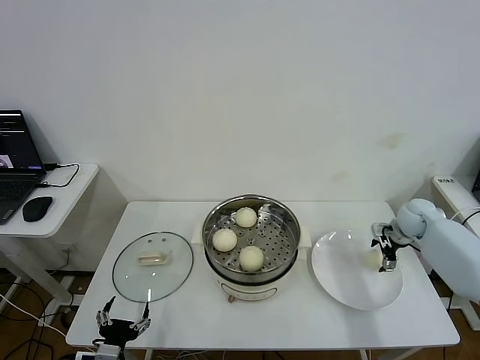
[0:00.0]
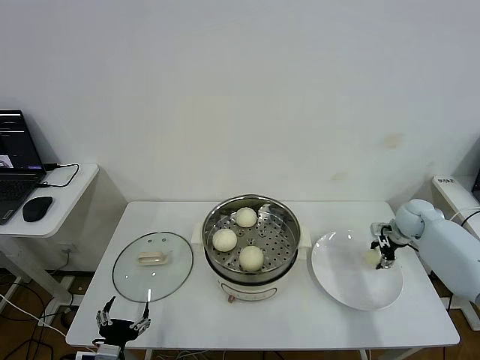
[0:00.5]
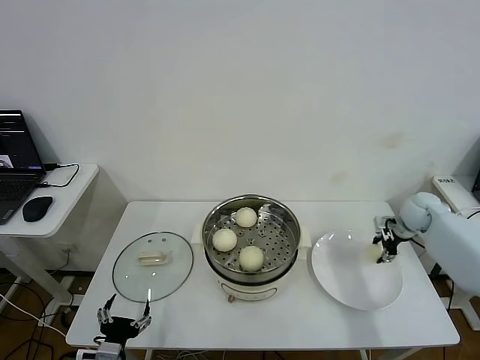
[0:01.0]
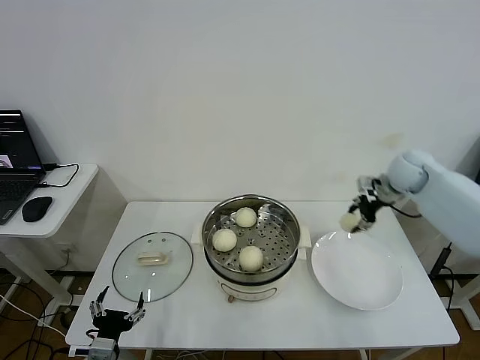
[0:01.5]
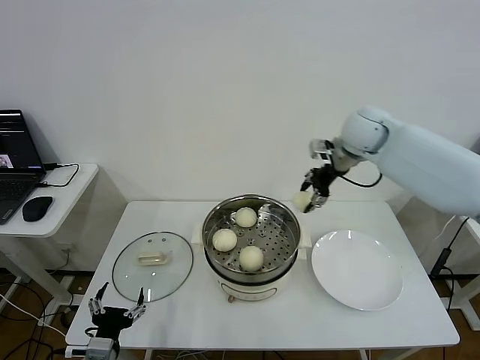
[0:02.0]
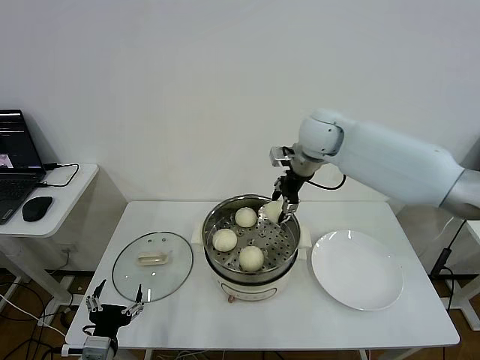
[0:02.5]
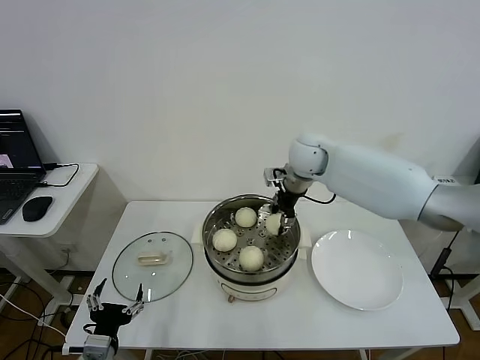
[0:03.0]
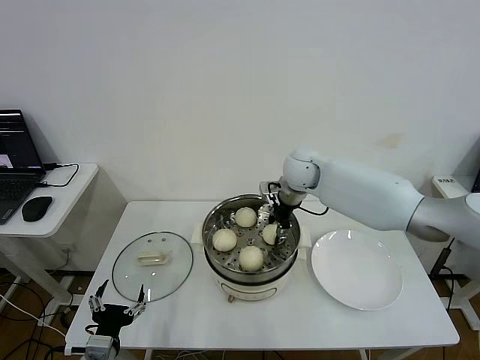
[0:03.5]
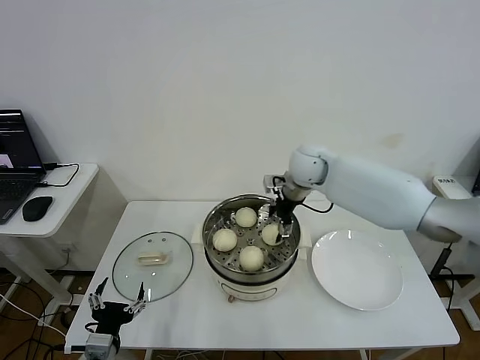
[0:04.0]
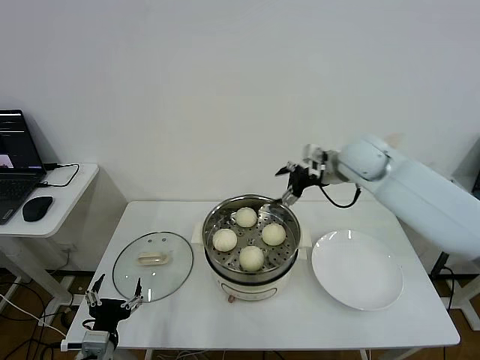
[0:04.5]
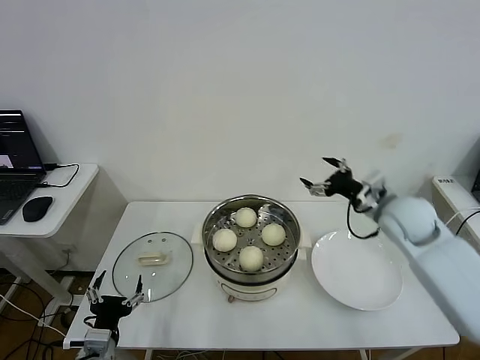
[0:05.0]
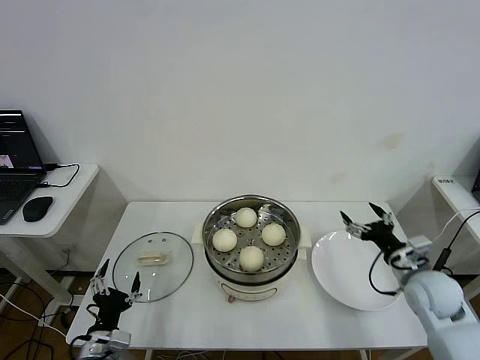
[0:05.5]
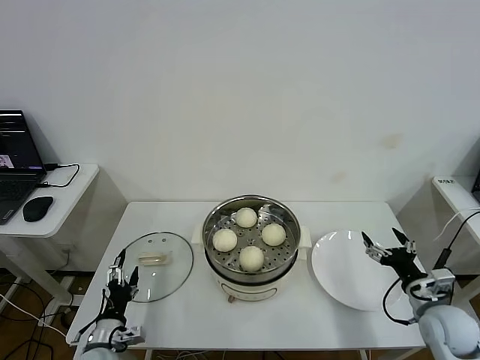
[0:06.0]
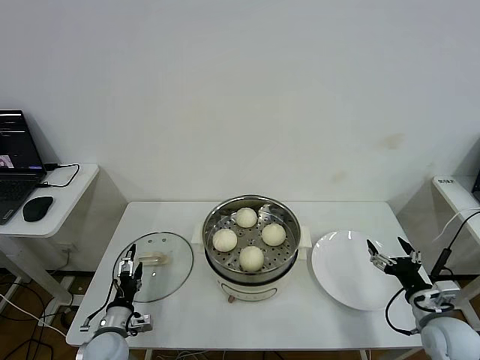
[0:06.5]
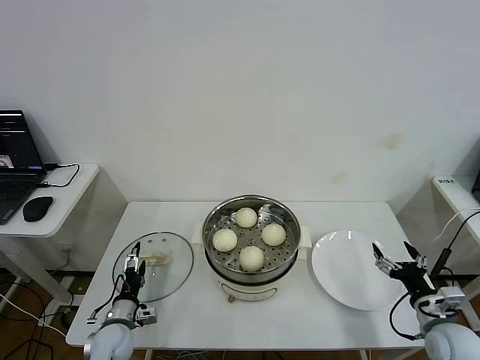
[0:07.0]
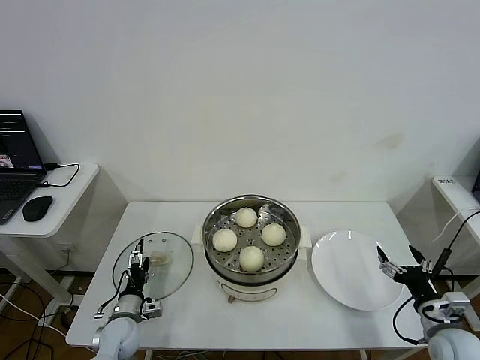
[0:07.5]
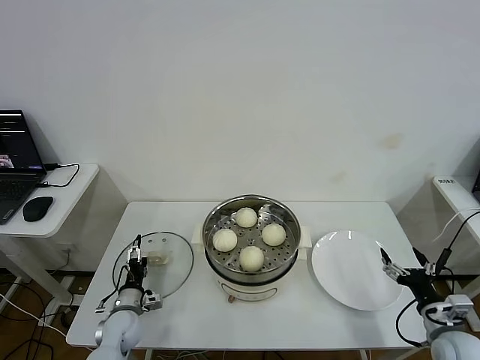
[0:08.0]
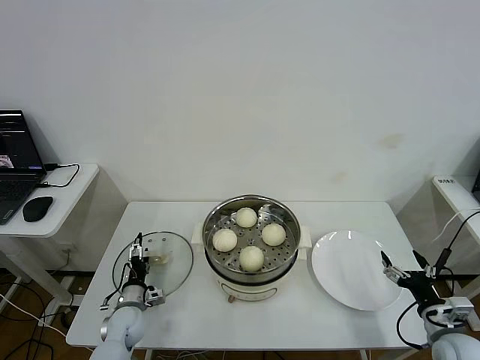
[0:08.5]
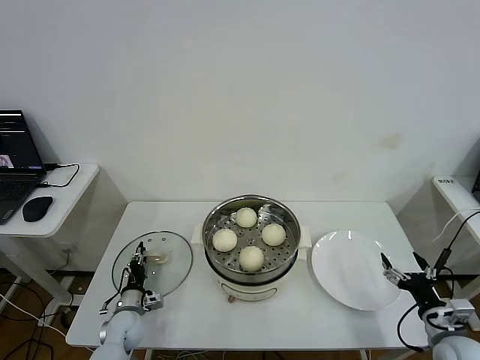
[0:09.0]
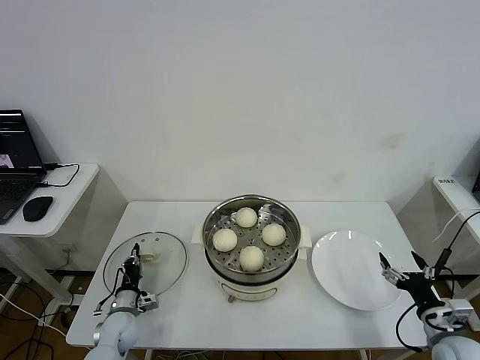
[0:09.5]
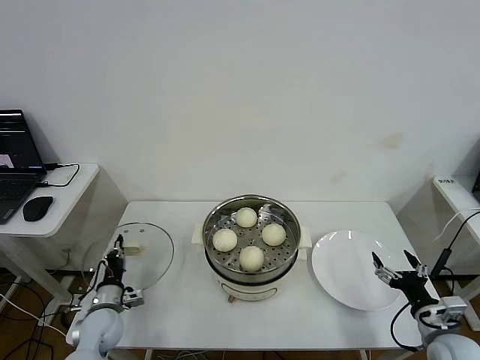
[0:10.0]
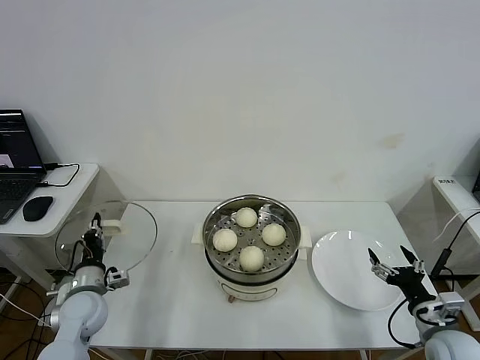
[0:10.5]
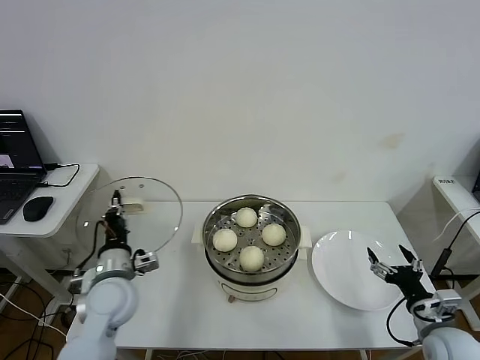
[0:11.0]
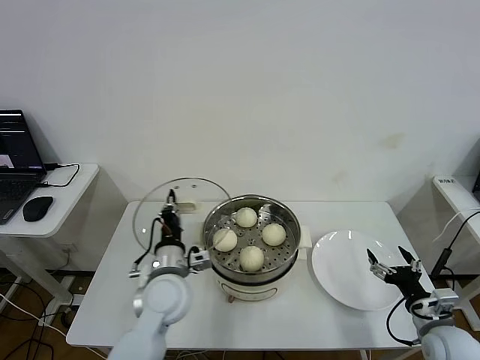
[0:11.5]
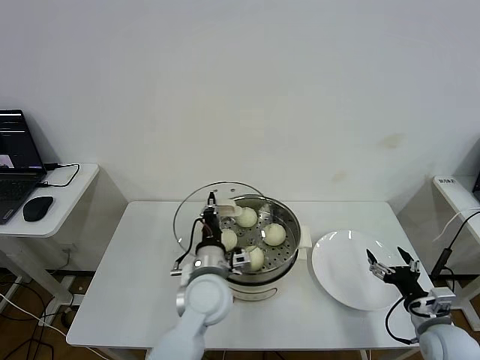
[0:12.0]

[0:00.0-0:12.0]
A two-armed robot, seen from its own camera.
Step, 0:01.0 to 0:04.0: Place the baozi on the steamer with right gripper.
Step, 0:04.5 to 0:09.5: Grasp the pot lid with left gripper.
0:00.0 to 0:02.0: The right gripper heads upward and to the left, covering some 30 cm, and closes.
0:02.0 to 0:04.0: The right gripper is displaced to the left and downward by roughly 15 cm, and opens up.
0:04.0 to 0:06.0: The left gripper shifts some 10 cm downward and forward. The right gripper goes approximately 40 cm backward, to the right and downward.
0:06.0 to 0:08.0: The left gripper moves forward and downward, approximately 10 cm. Meanwhile the right gripper changes place by about 5 cm.
0:08.0 to 0:10.0: The left gripper closes its fingers.
0:10.0 to 0:12.0: The left gripper travels to the right and upward by approximately 30 cm.

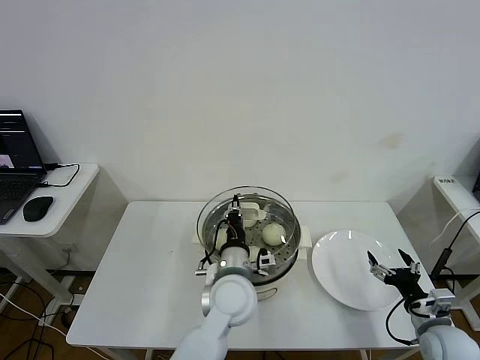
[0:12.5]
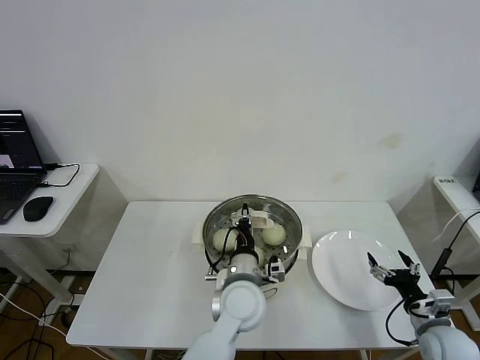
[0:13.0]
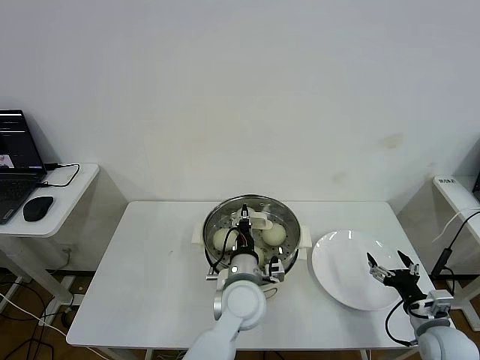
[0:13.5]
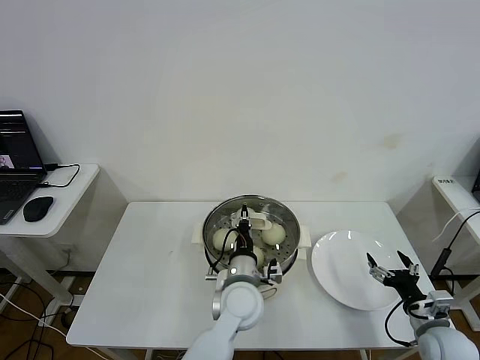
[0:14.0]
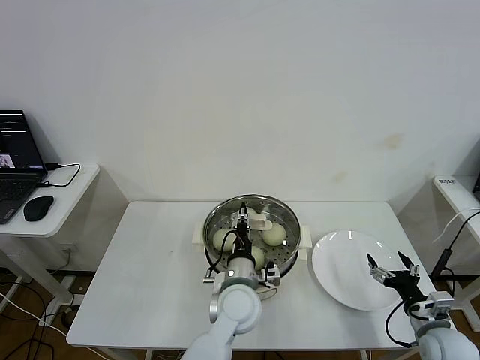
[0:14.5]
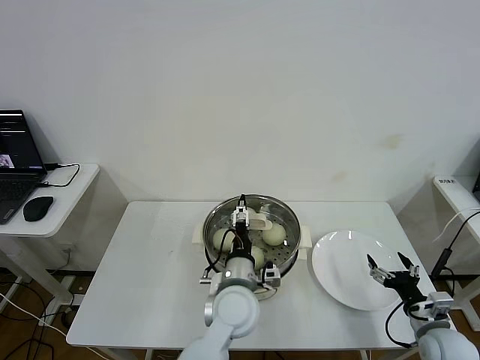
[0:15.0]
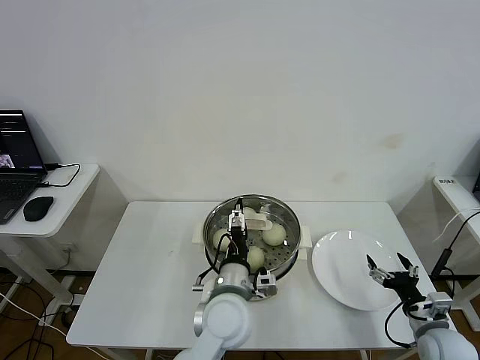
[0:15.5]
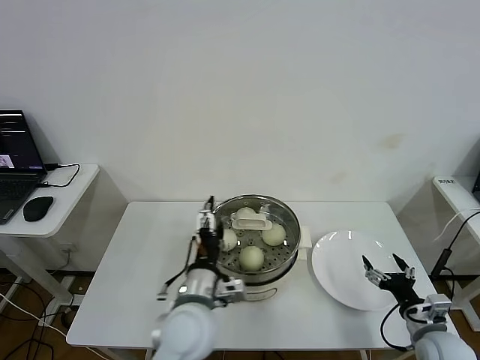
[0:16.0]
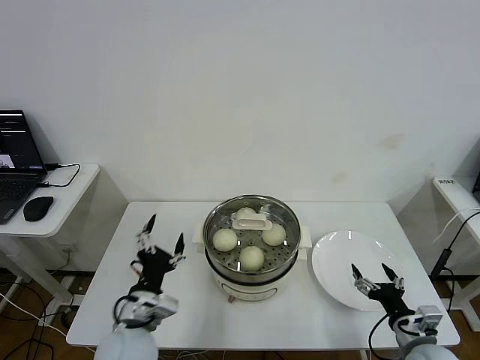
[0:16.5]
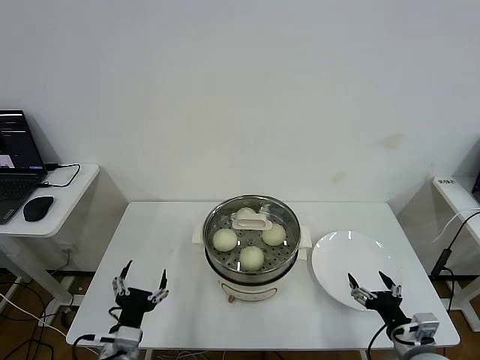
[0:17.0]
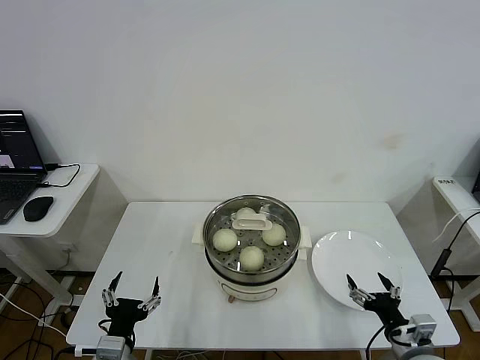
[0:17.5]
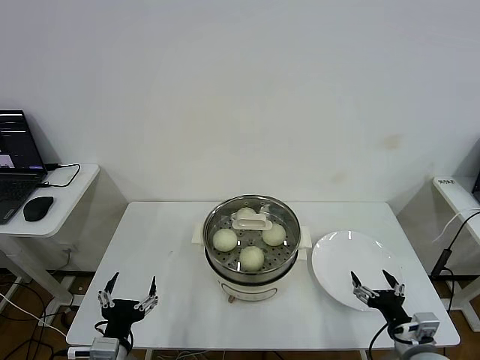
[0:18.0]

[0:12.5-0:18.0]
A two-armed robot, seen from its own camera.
Step, 0:12.5 to 0:14.5: Place the pot lid on the steamer with left gripper.
0:12.5 to 0:14.5: The grippers make only small movements.
0:14.5 to 0:16.0: The left gripper goes some 10 cm to the left, upward and backward, and opens.
0:16.0 to 0:18.0: The left gripper shifts roughly 25 cm to the left, backward and downward. Meanwhile the right gripper changes place by about 5 cm.

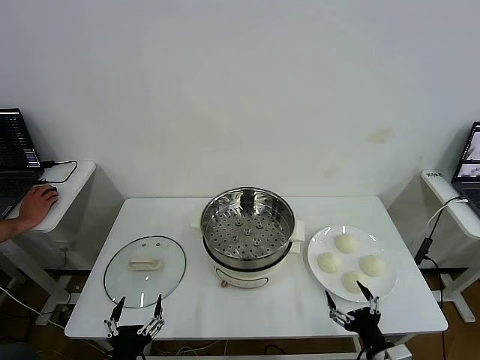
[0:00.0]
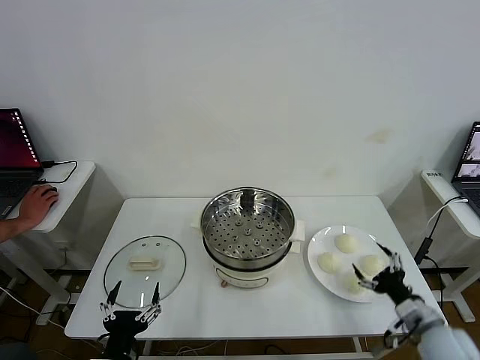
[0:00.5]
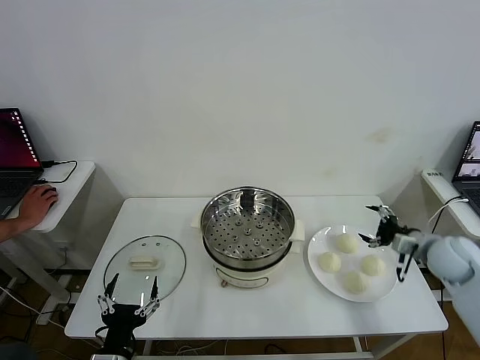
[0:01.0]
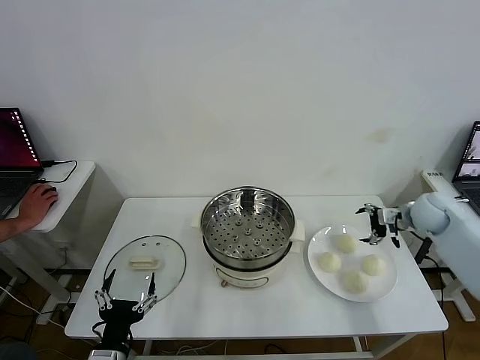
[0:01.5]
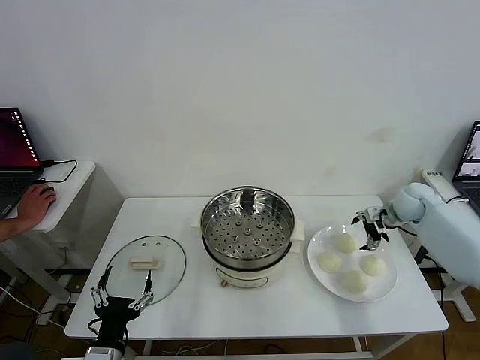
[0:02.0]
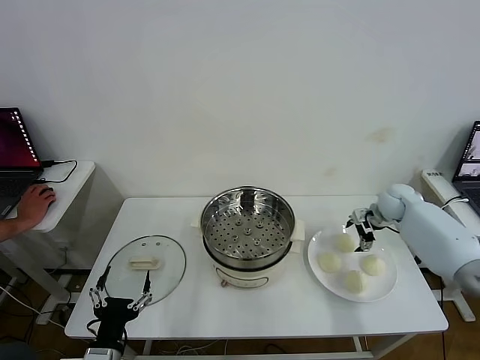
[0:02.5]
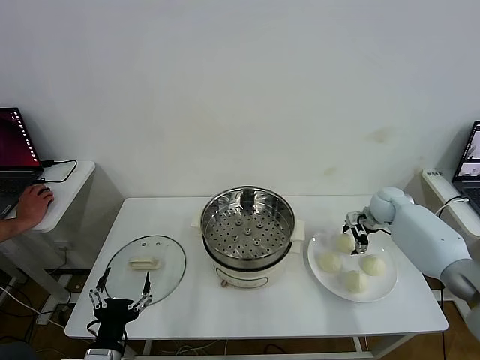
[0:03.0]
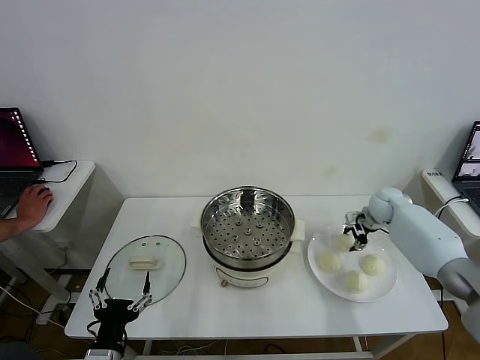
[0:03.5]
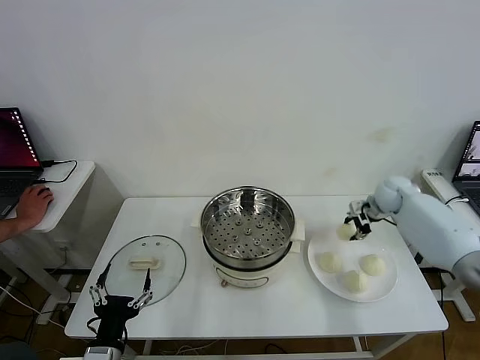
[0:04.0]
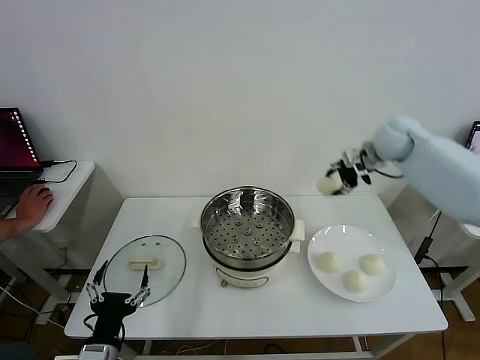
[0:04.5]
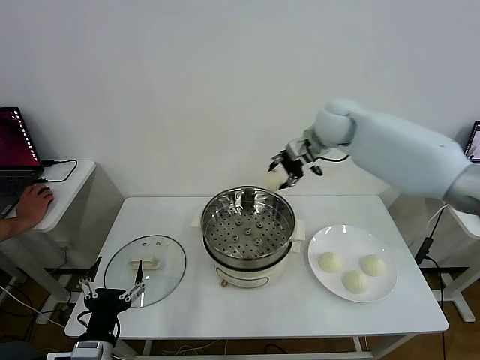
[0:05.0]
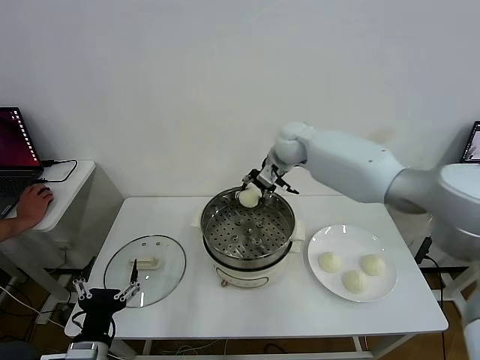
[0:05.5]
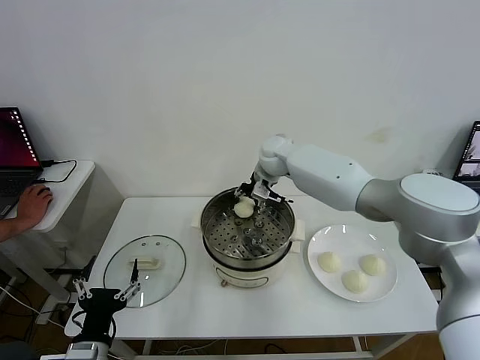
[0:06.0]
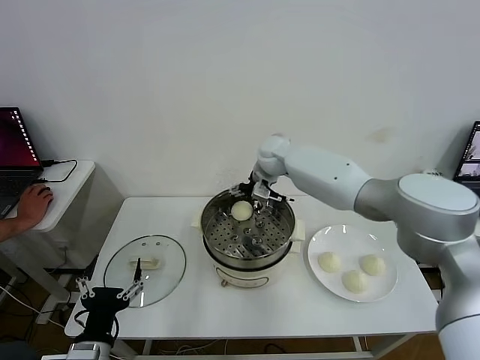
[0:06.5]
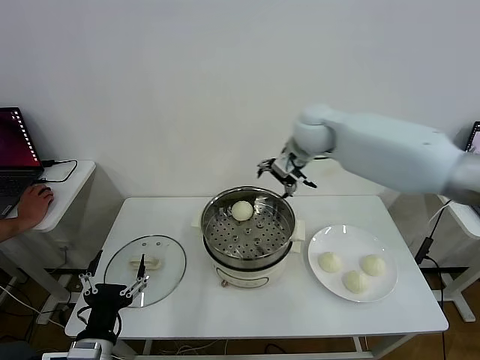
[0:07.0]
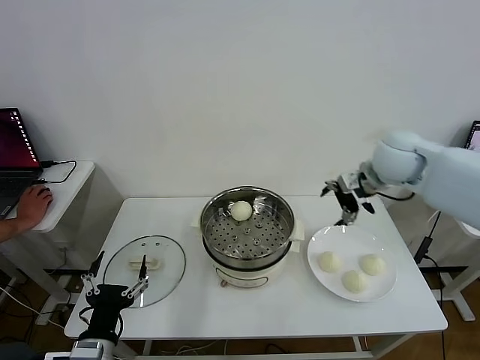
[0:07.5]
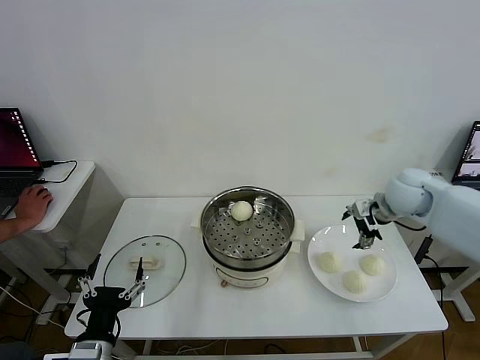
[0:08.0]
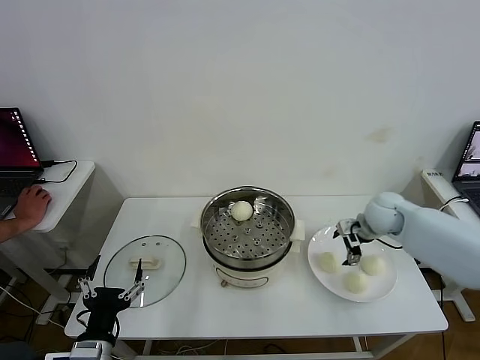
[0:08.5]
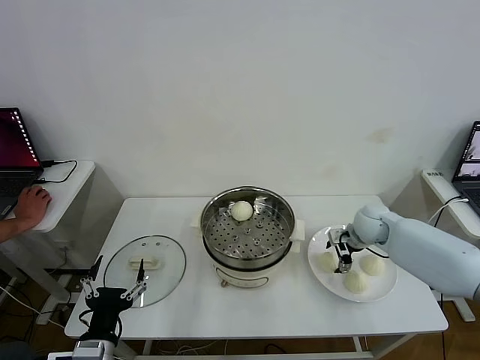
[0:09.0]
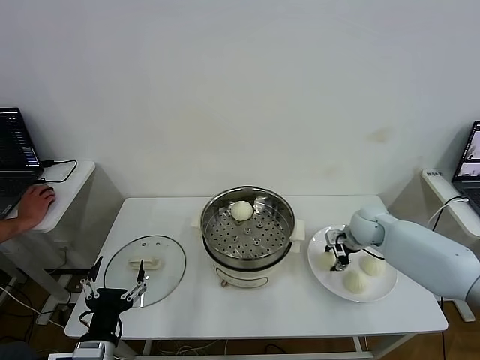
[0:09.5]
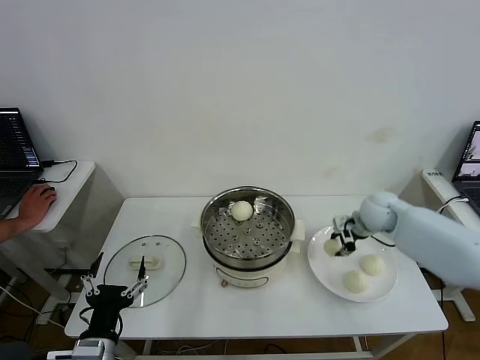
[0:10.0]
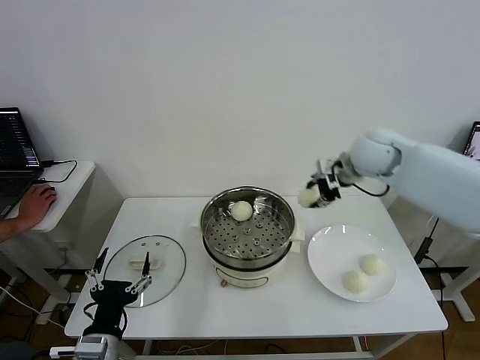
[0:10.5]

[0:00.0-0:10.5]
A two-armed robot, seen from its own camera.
Step, 0:00.0 to 0:03.0: Grasp the baozi in the plate with right gripper.
Step, 0:04.0 to 0:06.5: Place the baozi on the steamer with right gripper.
Step, 0:07.0 to 0:09.5: Grasp the baozi in the plate with right gripper.
0:02.0 to 0:04.0: The right gripper ends up some 5 cm from where it was, and closes up.
0:04.0 to 0:06.5: The right gripper travels to the left by approximately 30 cm, and opens up.
0:06.5 to 0:08.5: The right gripper heads to the right, downward and backward, covering roughly 30 cm.
0:08.5 to 0:10.5: The right gripper goes approximately 20 cm upward and to the left, and closes.
